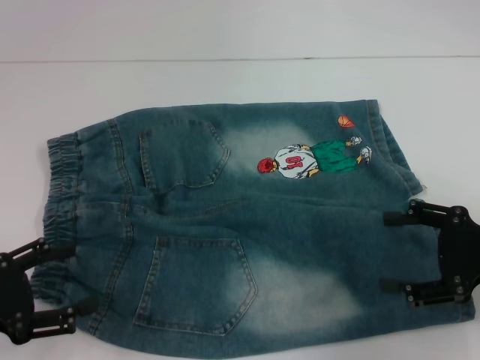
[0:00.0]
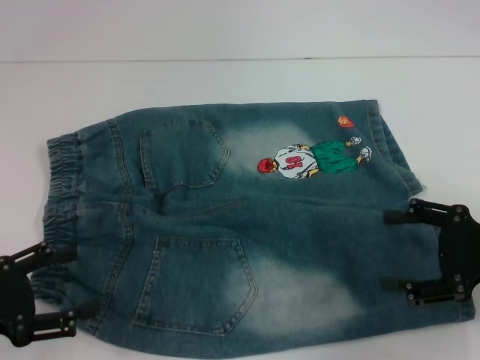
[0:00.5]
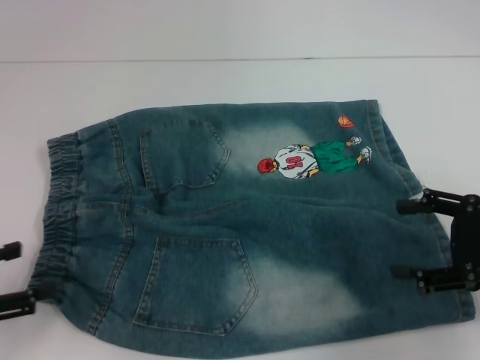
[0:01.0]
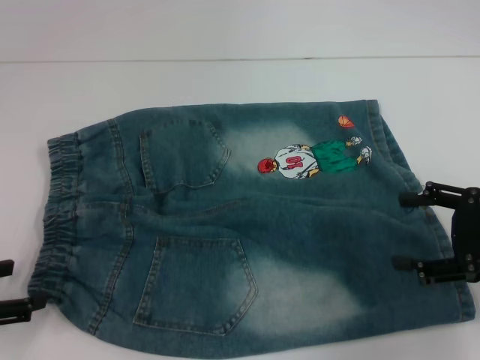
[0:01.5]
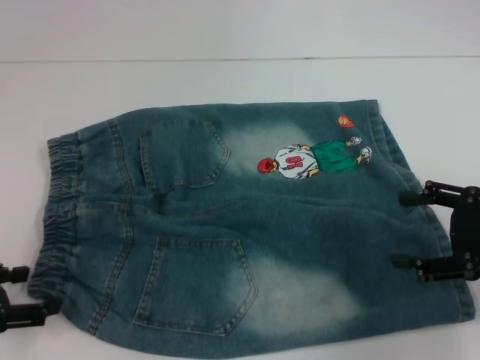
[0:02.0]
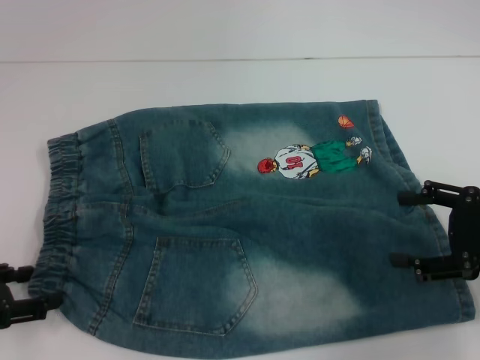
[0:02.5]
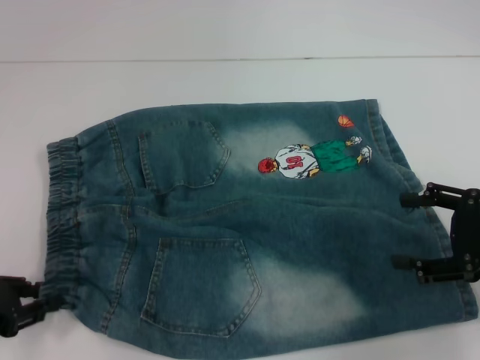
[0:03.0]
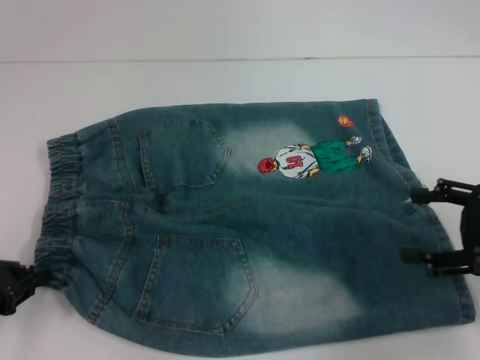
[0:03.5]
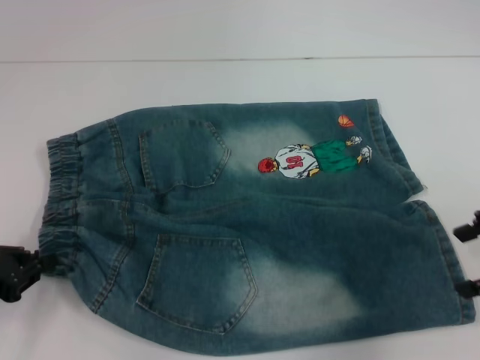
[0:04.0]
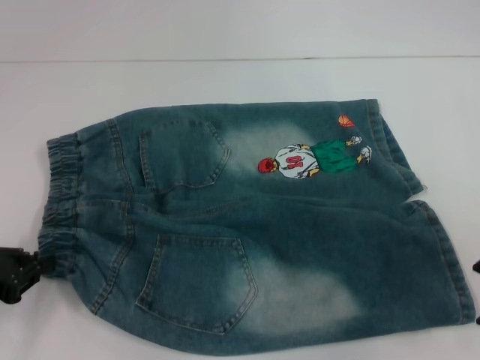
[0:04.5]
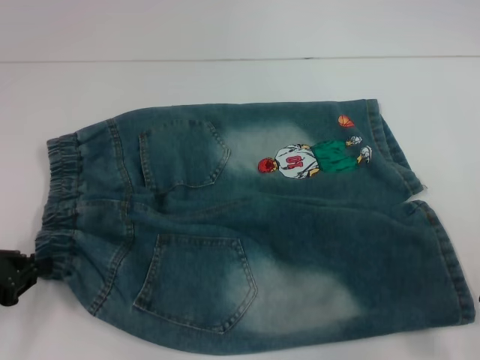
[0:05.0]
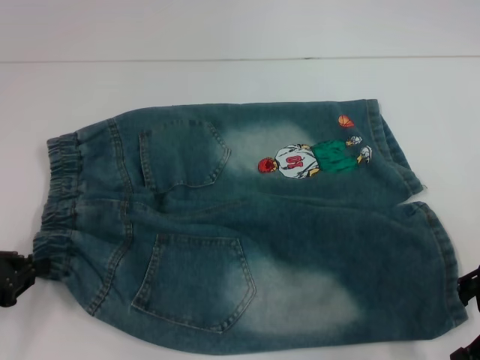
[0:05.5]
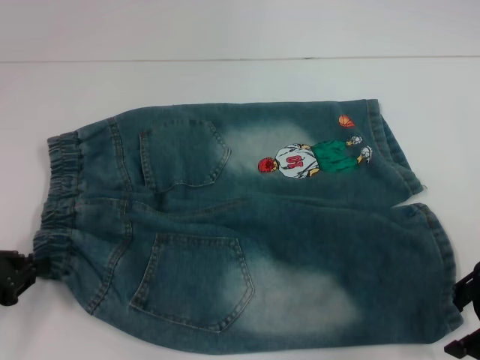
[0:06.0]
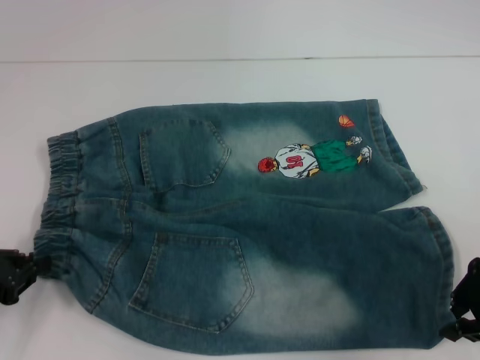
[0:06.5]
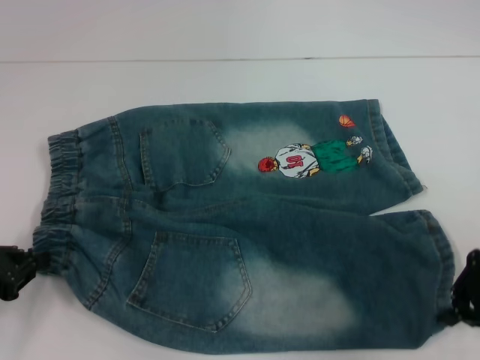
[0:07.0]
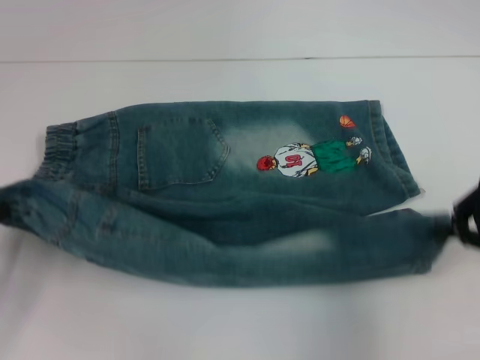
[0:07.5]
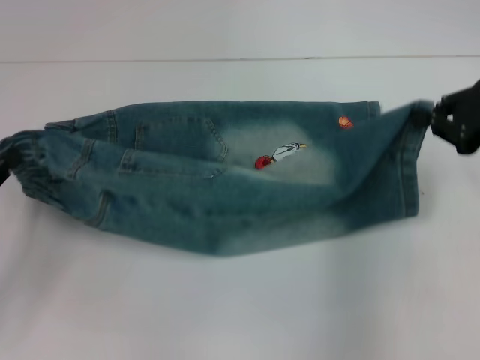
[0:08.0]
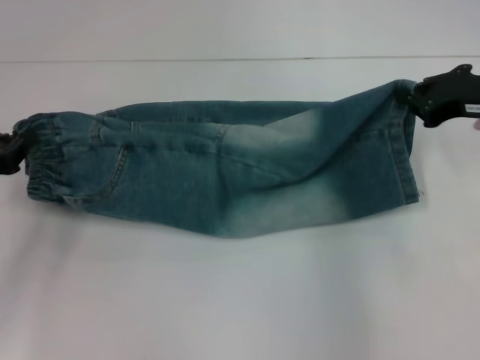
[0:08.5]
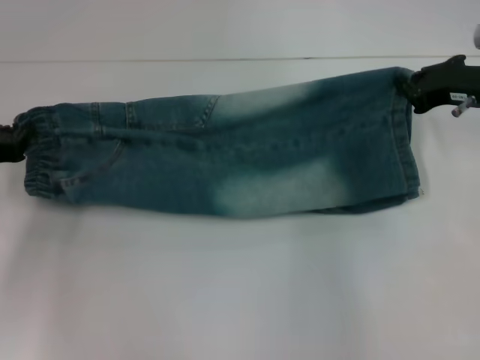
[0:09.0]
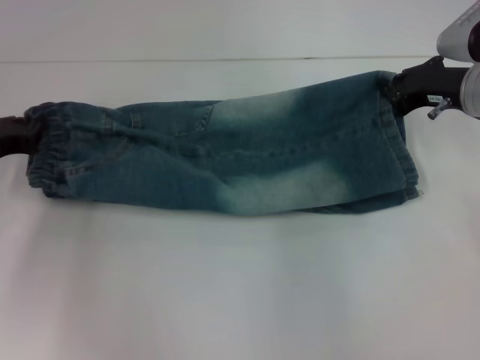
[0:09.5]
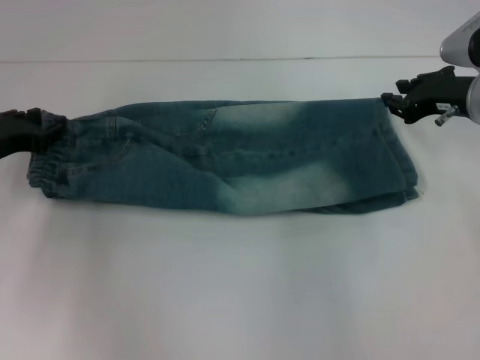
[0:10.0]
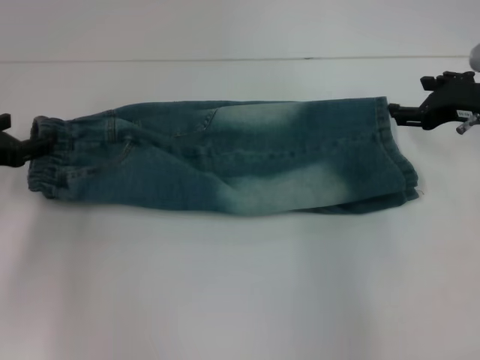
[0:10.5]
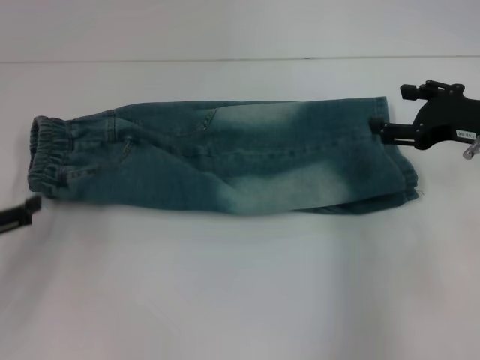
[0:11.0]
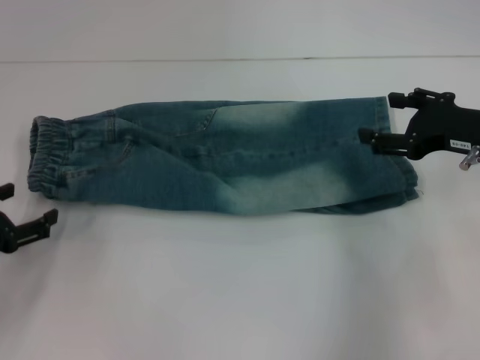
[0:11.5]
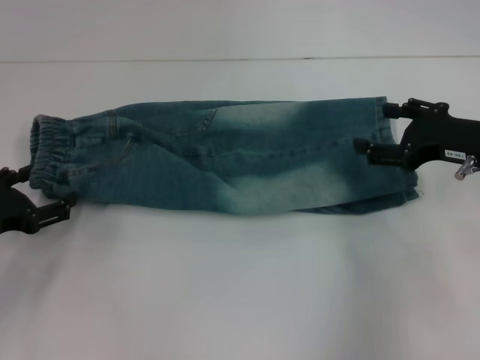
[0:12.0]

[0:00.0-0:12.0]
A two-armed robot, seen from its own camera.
Step, 0:00.0 to 0:03.5: Hold the lower left waistband with your left hand.
Step, 0:04.0 to 0:06.5: Grab the lower right pant leg with your right hand.
Step, 0:07.0 to 0:10.0: Fold upward with your right hand.
0:02.0 to 0:04.0: The right gripper moves upward, some 5 cm. The left gripper closes.
0:04.0 to 0:06.0: The right gripper moves about 5 cm.
0:06.0 to 0:08.0: The right gripper changes place by approximately 5 cm, and closes up.
0:08.0 to 0:10.0: The left gripper travels forward by about 10 cm. Meanwhile the right gripper shifts approximately 10 cm forward and downward.
0:10.0 to 0:12.0: The two grippers go some 5 cm backward. The right gripper opens its fingers; the left gripper opens its fingers.

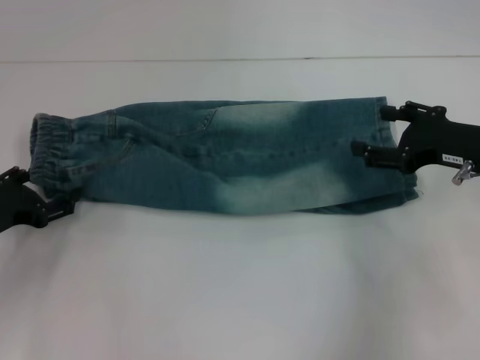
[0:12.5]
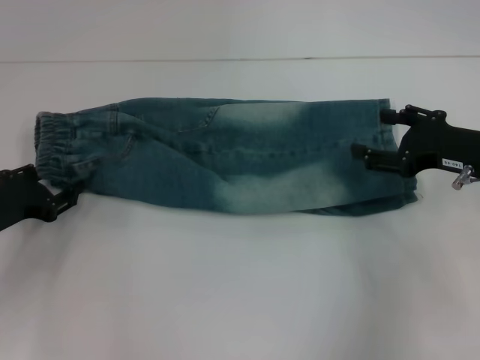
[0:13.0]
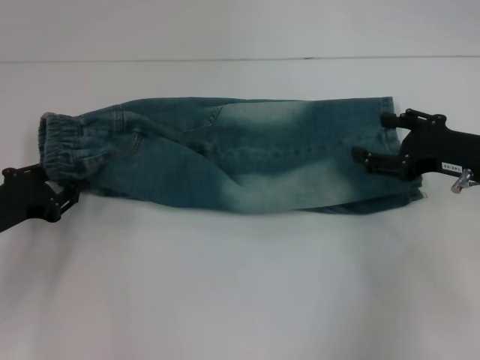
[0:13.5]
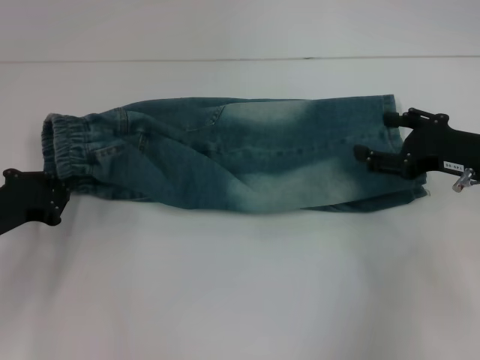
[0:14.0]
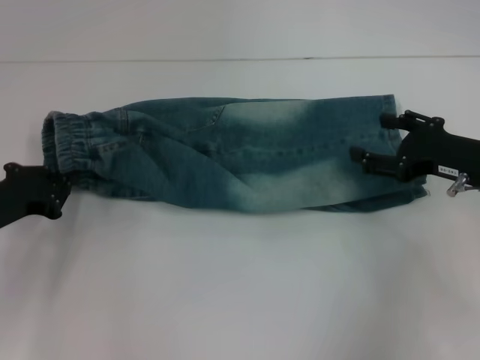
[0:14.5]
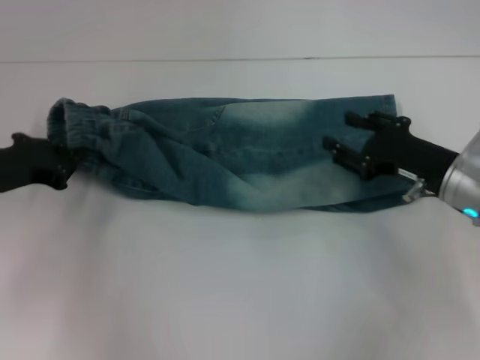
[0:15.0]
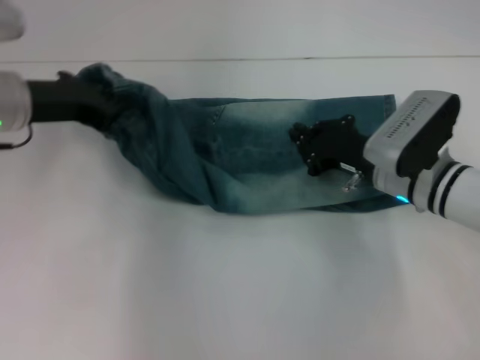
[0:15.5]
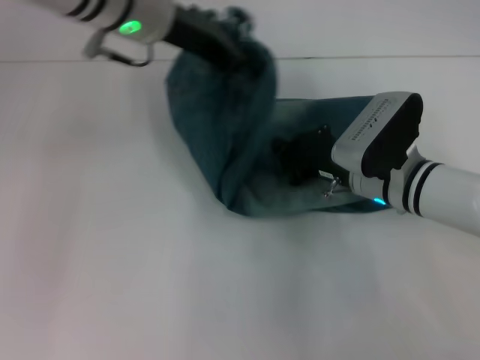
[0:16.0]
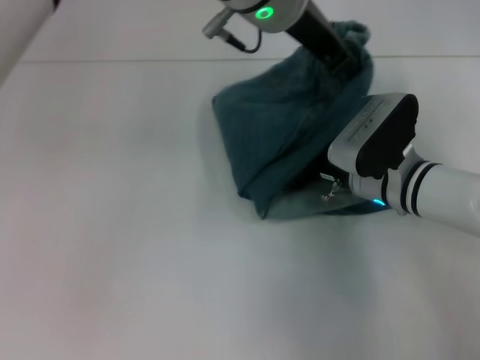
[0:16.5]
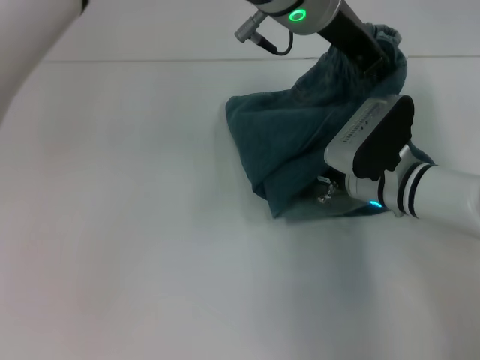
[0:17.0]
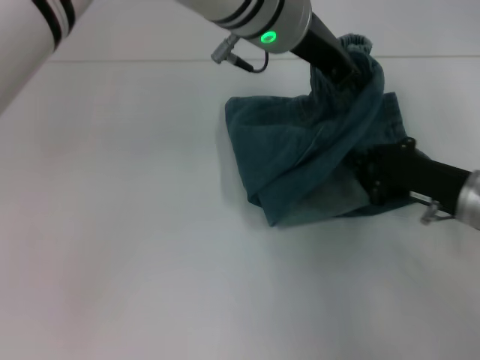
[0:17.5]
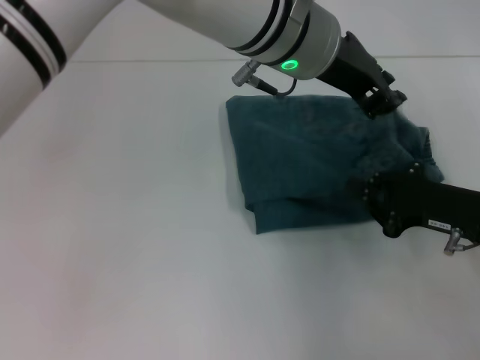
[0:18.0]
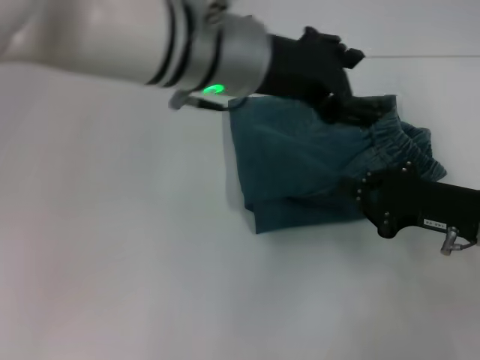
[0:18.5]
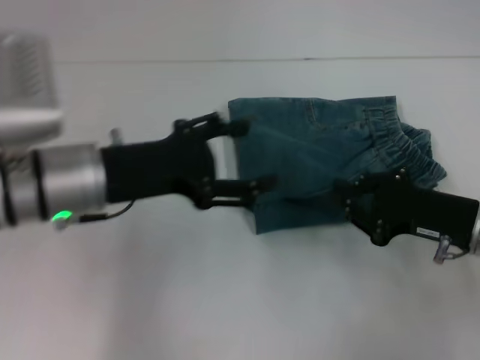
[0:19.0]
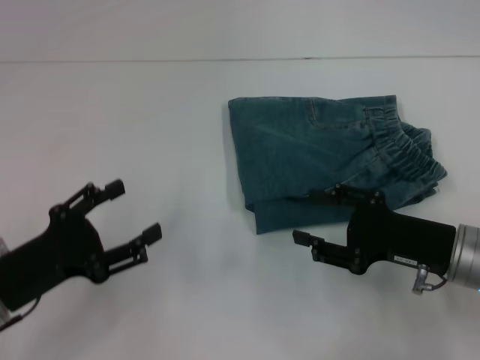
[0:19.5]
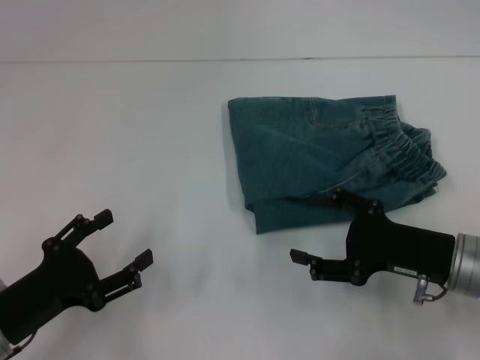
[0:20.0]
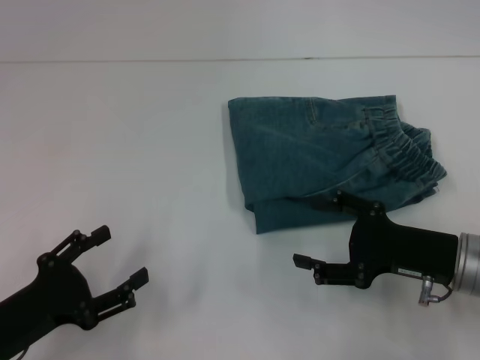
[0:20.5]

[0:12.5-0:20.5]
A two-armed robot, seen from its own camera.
Step, 0:14.5 to 0:17.5: Press the middle of the pants with your right hand.
0:12.5 to 0:14.5: The left gripper closes.
0:14.5 to 0:16.5: The left gripper heads to the right and upward, covering some 35 cm. Meanwhile the right gripper travels to the left by approximately 10 cm, and closes up.
0:16.5 to 0:18.5: The right gripper travels to the right and backward by about 15 cm. The left gripper moves backward and to the left, roughly 10 cm, and opens up.
0:18.5 to 0:20.5: The left gripper travels to the left, downward and backward by some 35 cm, and opens up. Meanwhile the right gripper opens its fingers.

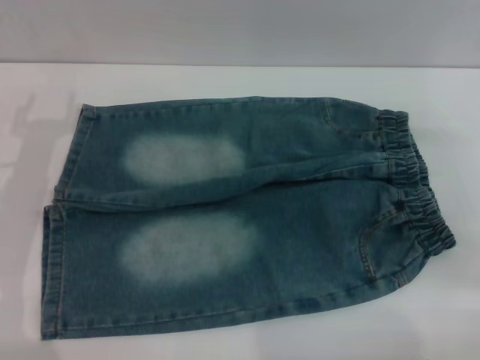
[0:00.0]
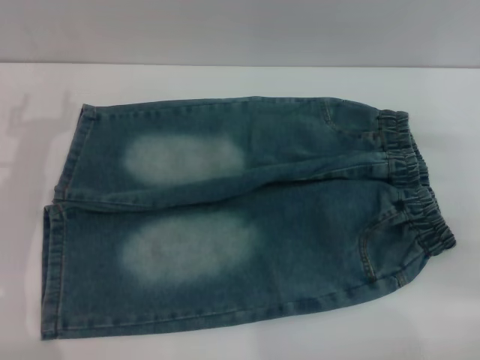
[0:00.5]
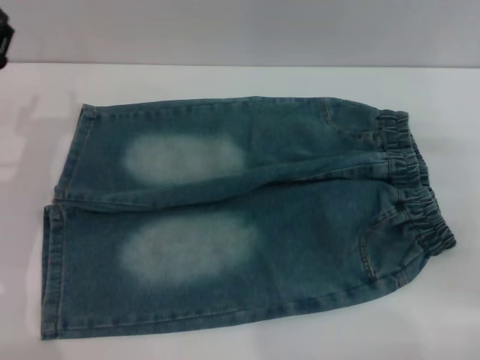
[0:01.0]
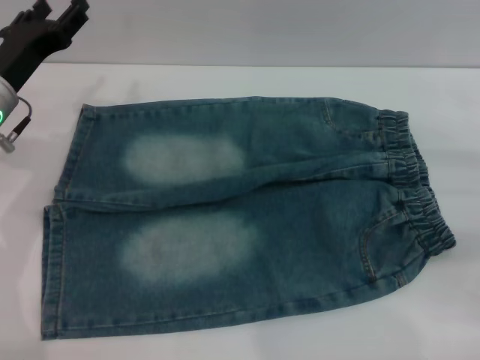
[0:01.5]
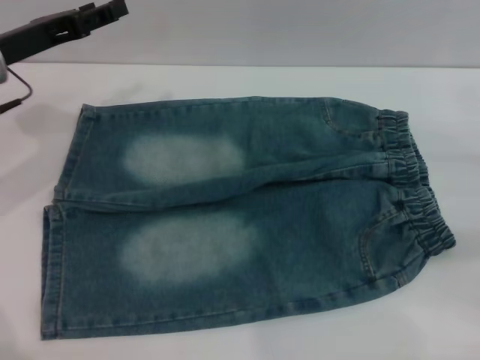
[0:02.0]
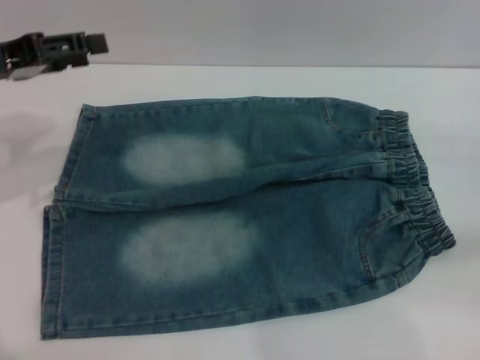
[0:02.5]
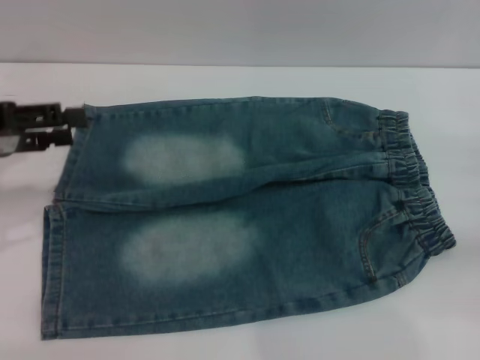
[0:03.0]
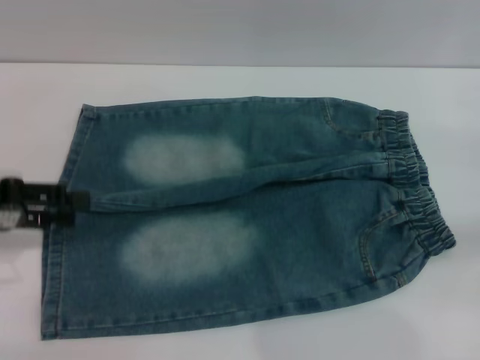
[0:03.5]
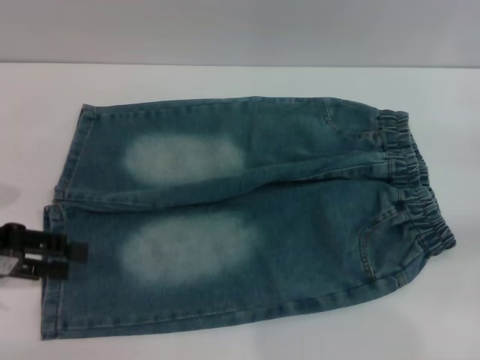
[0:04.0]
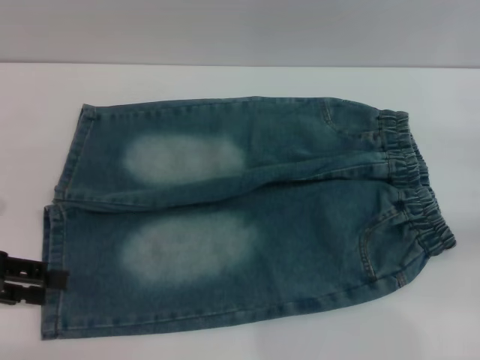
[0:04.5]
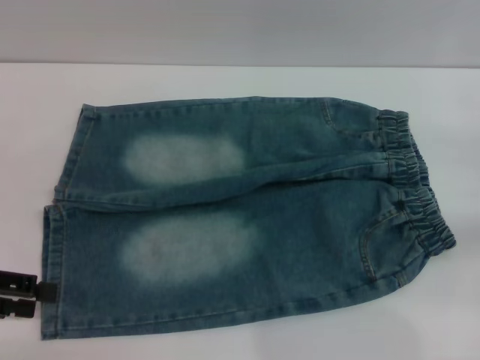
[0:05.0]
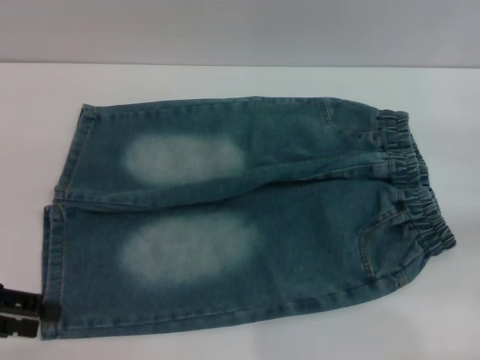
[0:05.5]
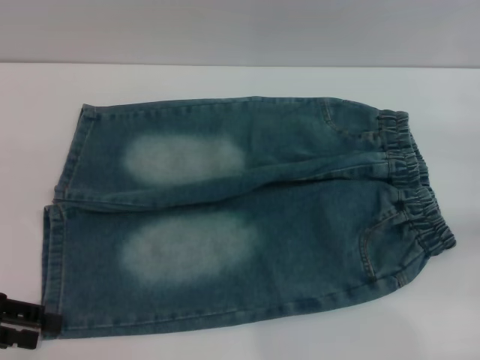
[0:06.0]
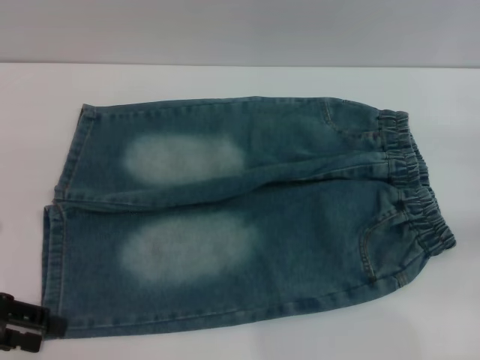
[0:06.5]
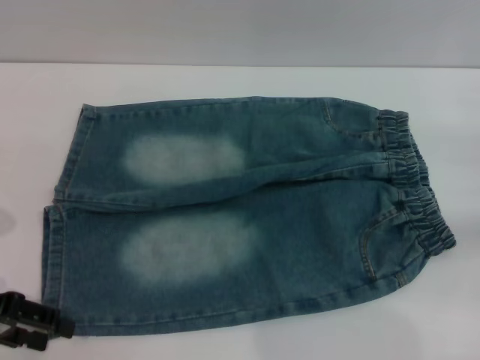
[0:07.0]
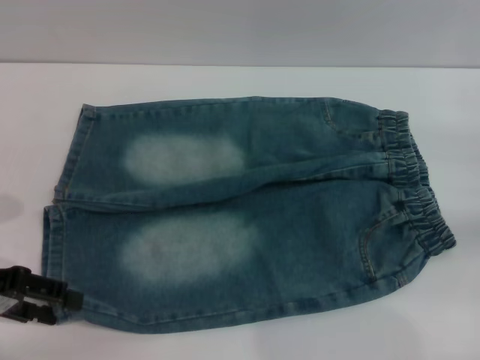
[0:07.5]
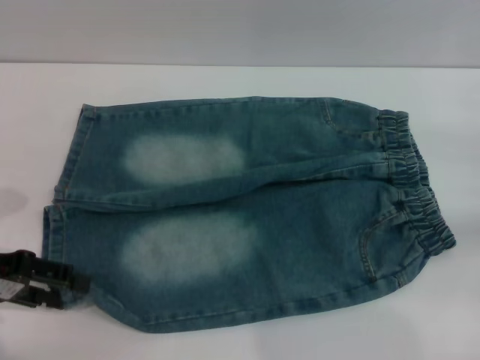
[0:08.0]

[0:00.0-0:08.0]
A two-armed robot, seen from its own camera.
0:00.0 to 0:02.0: The left gripper is displaced upward and forward by roughly 10 cm.
0:02.0 to 0:04.0: The left gripper goes roughly 15 cm backward and to the left.
0:04.0 to 0:08.0: There are only small adjustments of the grippers.
